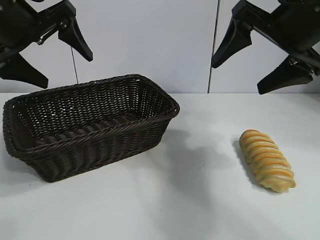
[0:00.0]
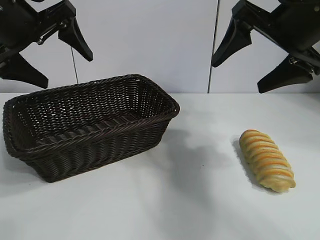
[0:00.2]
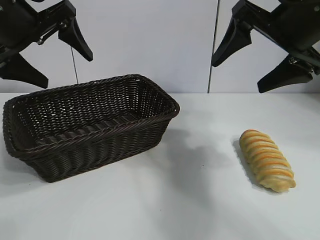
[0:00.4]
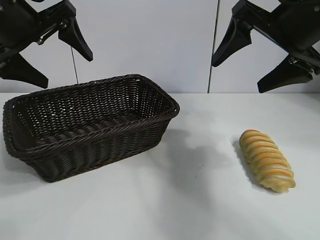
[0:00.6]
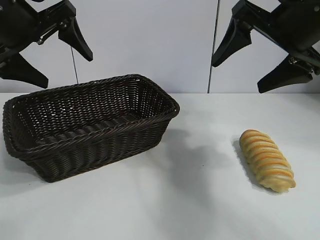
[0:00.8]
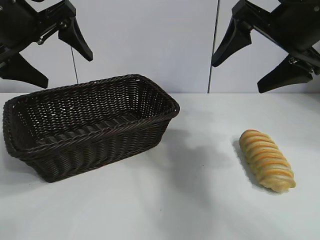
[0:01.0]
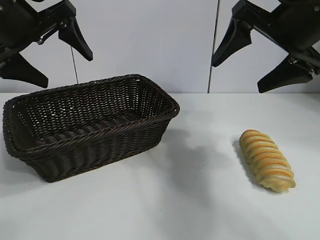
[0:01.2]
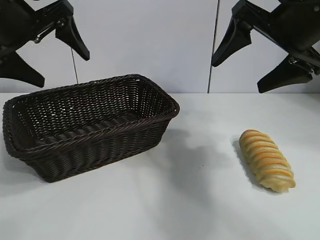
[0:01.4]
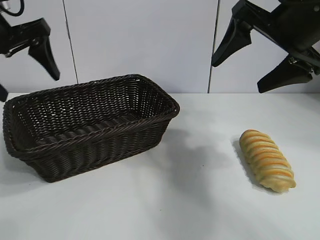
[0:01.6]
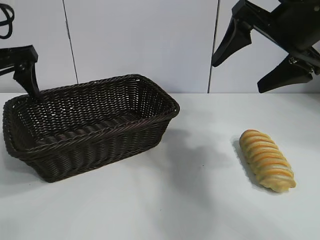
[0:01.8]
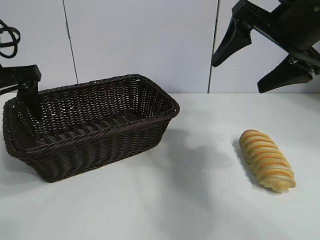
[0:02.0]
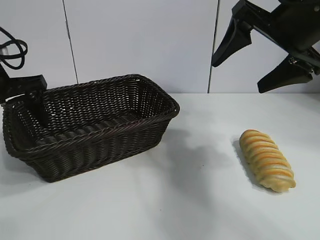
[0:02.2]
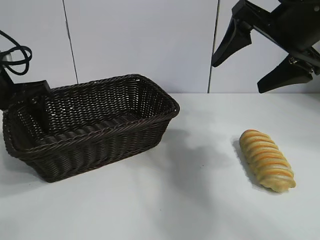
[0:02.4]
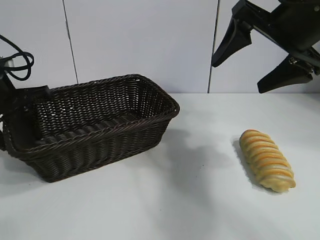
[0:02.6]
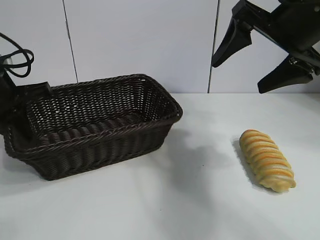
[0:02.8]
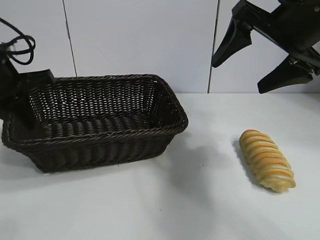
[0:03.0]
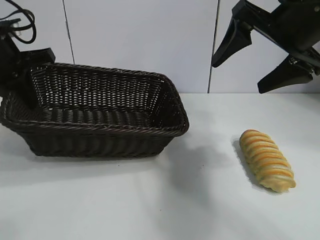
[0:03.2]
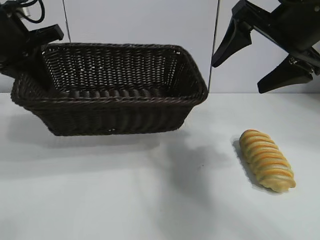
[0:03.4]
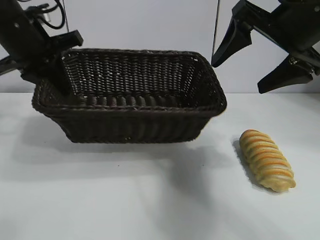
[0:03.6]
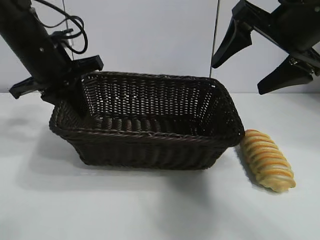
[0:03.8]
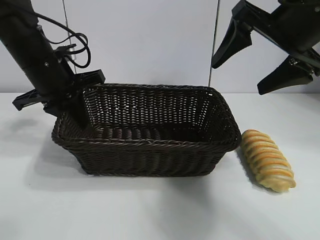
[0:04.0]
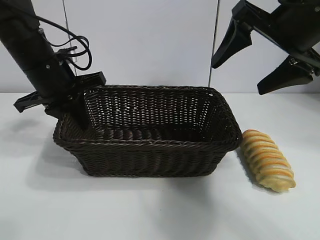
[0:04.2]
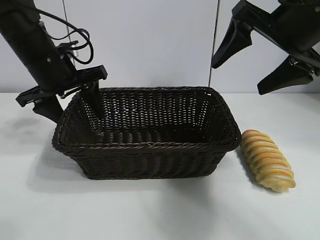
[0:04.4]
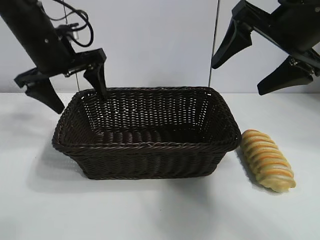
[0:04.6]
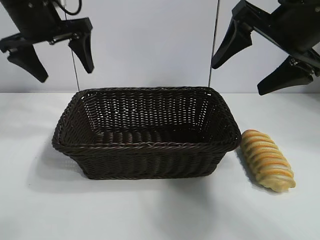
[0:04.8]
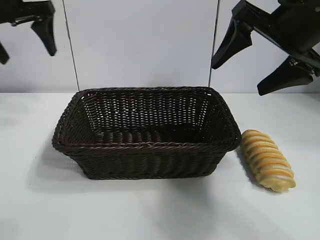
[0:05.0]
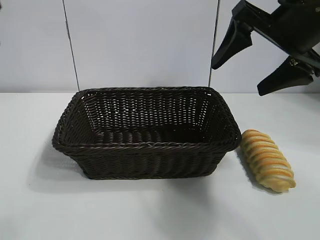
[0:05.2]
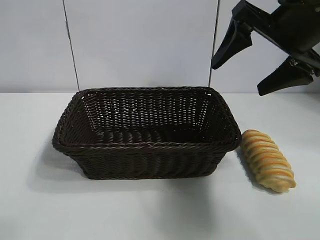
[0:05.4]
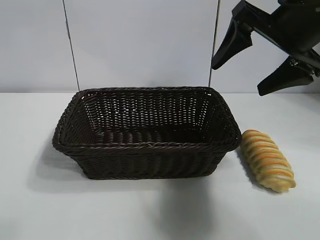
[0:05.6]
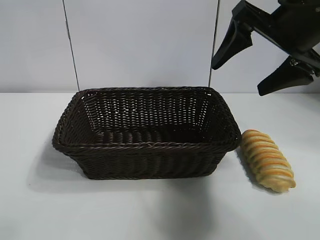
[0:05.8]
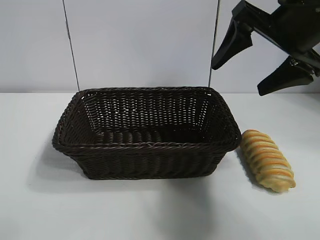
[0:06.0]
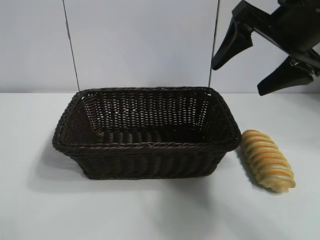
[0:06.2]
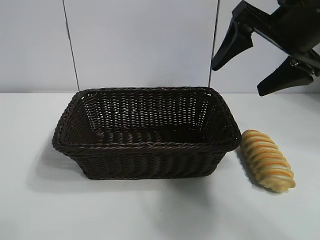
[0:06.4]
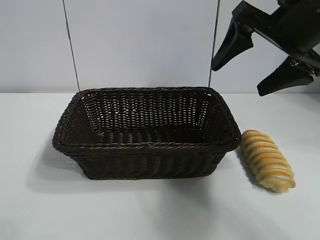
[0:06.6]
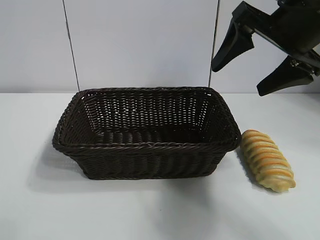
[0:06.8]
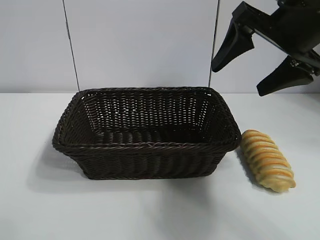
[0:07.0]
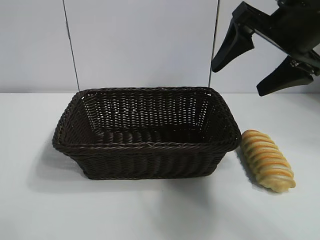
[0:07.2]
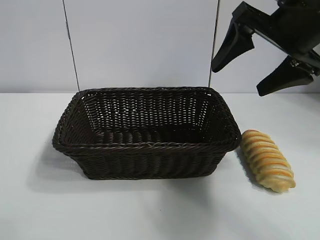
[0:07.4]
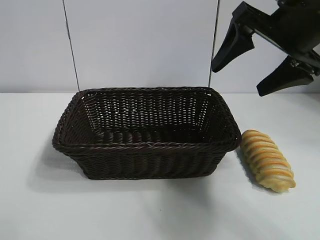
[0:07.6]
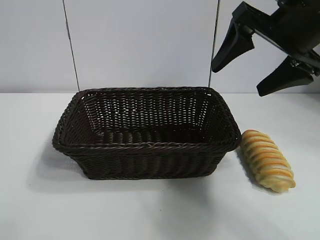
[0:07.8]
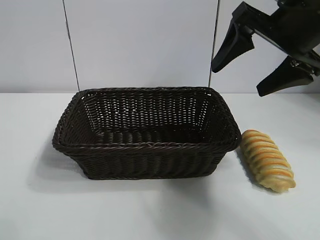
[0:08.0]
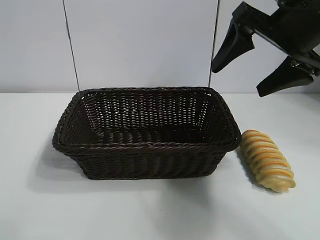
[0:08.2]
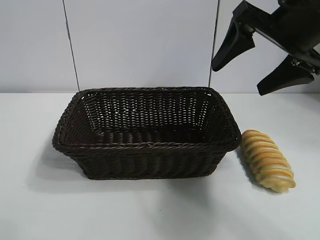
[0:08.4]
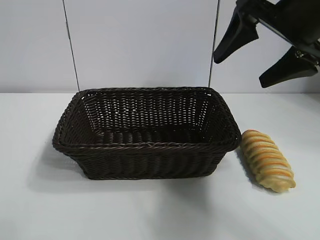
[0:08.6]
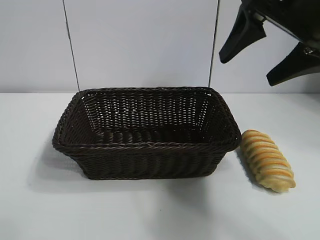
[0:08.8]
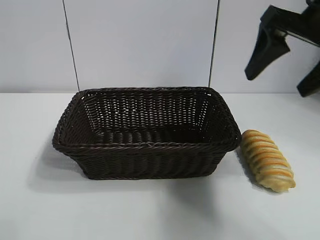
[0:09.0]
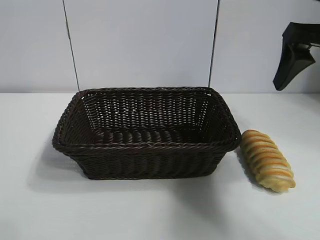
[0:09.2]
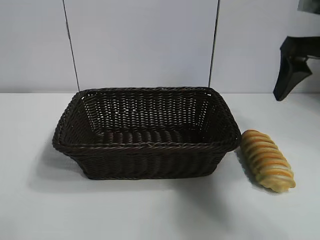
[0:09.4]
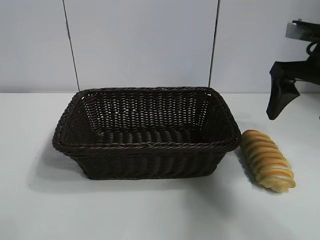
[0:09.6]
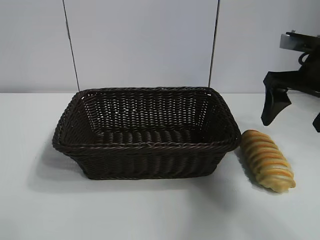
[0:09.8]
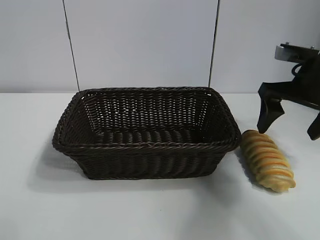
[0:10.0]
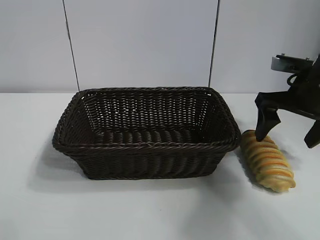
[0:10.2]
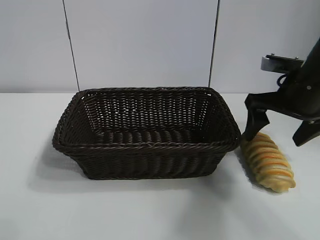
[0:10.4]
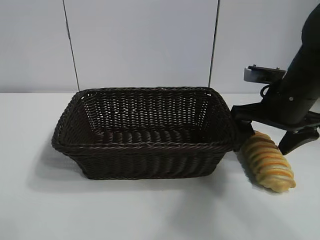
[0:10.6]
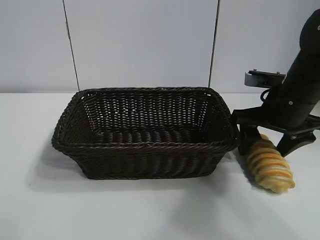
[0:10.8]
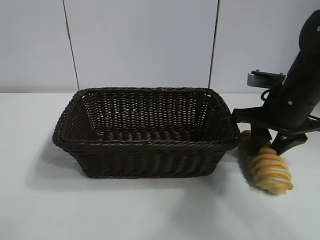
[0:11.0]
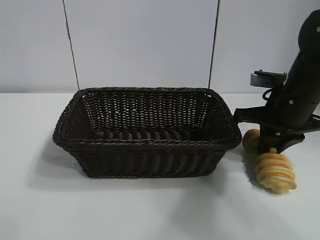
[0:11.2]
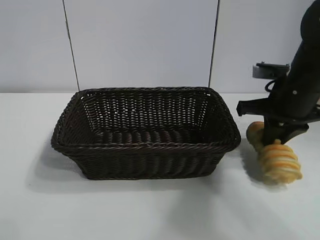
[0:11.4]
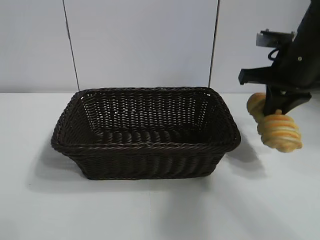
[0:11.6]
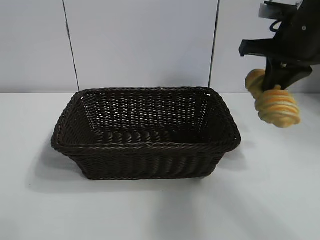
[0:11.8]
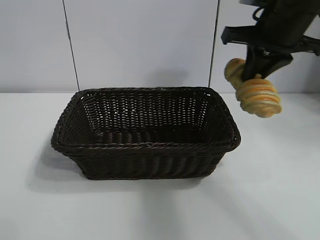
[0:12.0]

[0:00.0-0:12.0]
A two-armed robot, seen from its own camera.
Task of the whole recording: pick up the long bread and put it into the basket.
Step, 0:01.4 to 0:02.6: Grasp the basket with the left gripper.
Step, 0:03.0 to 0:04.4: Place the basket in the center of the table with the left gripper.
Step, 0:04.6 to 0:11.0: Grasp the long bread with right gripper.

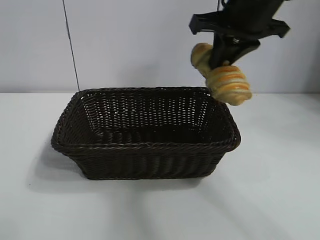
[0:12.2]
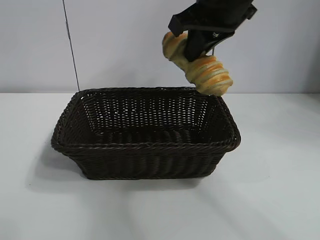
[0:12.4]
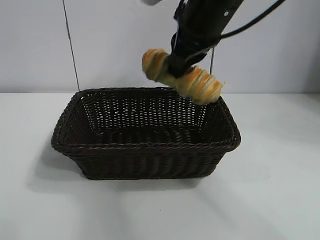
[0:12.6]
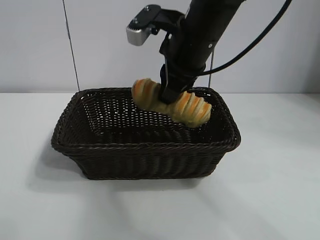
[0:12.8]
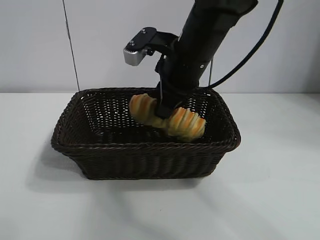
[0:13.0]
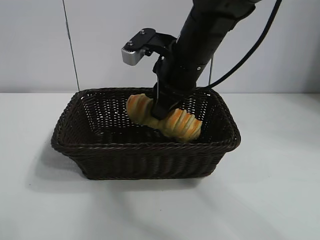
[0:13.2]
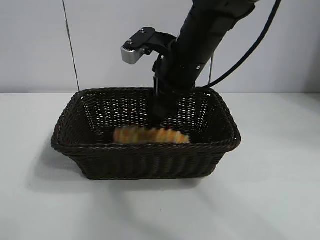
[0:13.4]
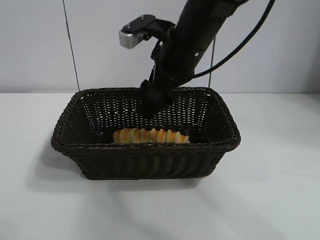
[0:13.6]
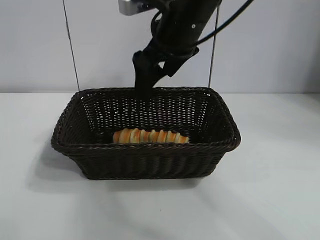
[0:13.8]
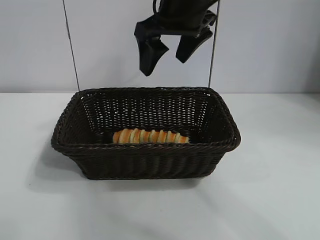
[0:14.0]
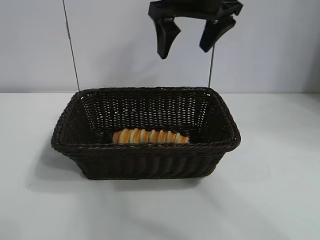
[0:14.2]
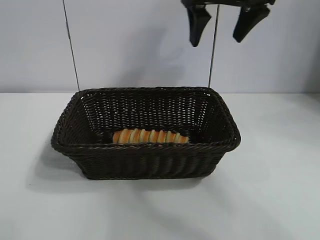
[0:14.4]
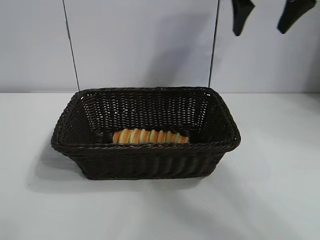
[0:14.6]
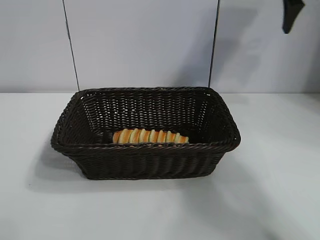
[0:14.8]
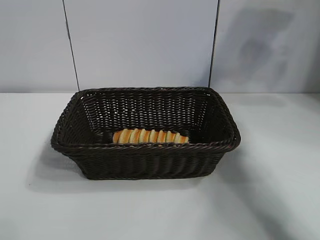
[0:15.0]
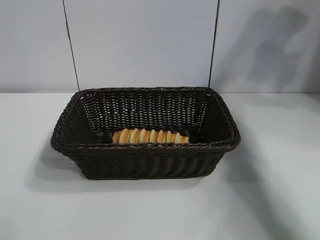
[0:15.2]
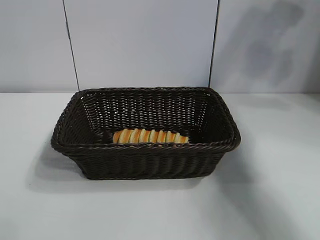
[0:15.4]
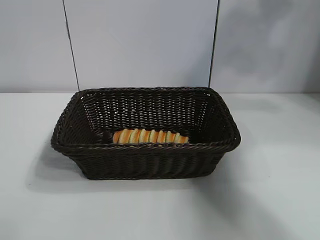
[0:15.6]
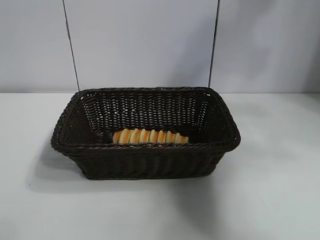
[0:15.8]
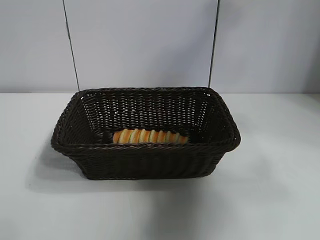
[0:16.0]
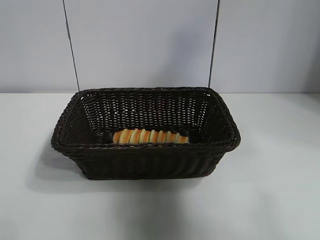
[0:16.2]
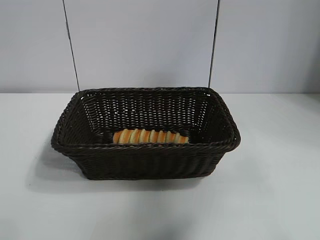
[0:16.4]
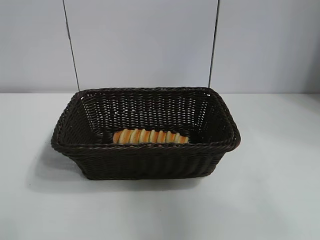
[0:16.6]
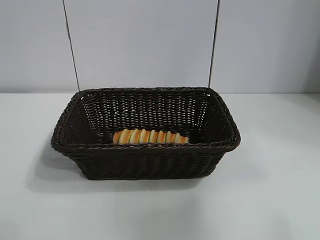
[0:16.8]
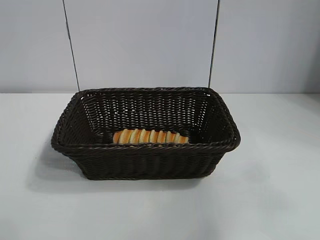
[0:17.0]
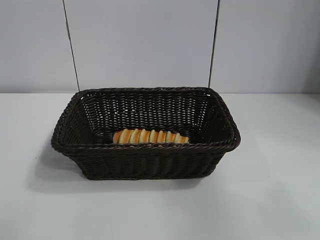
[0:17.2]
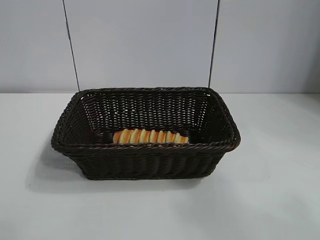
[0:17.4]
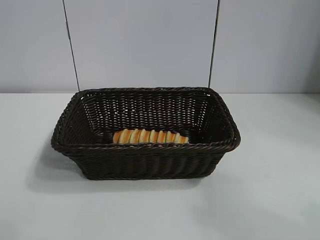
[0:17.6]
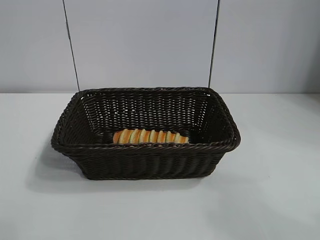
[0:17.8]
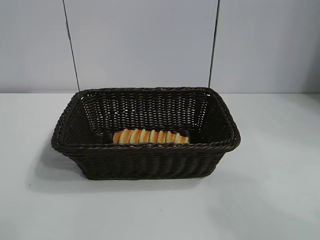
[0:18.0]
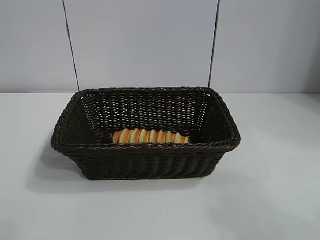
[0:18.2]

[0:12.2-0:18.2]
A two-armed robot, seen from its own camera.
Task of the whole recording: pick up the long bread and put it into the basket.
Step, 0:12.2 to 0:13.6: Place the long bread in the basket with right gripper.
